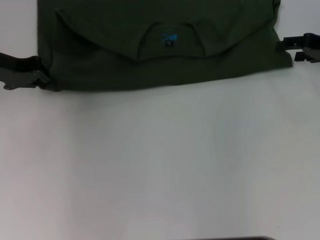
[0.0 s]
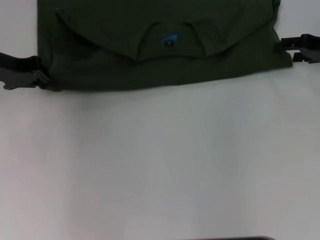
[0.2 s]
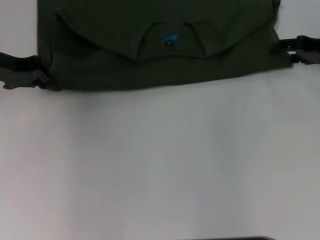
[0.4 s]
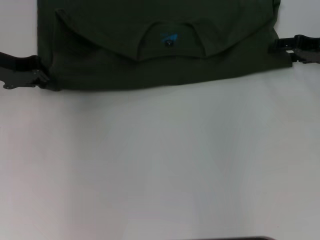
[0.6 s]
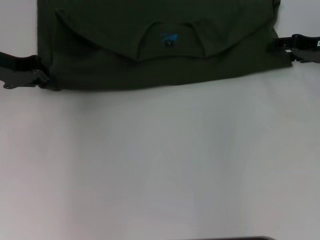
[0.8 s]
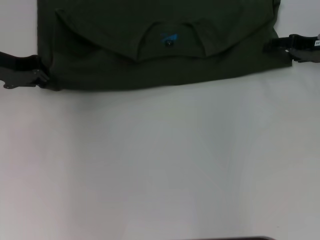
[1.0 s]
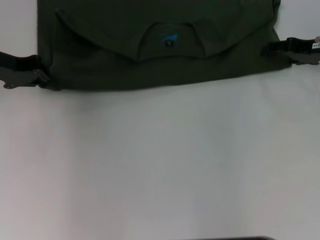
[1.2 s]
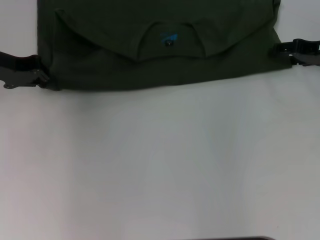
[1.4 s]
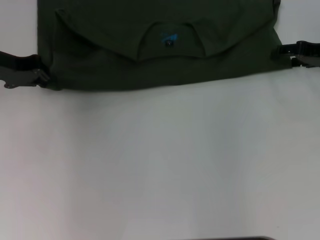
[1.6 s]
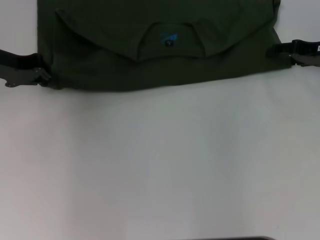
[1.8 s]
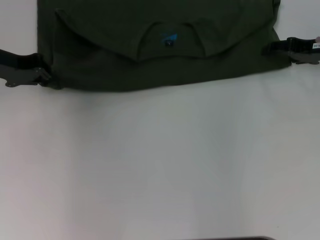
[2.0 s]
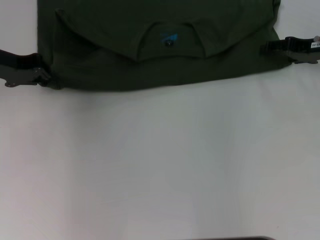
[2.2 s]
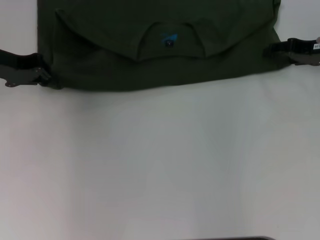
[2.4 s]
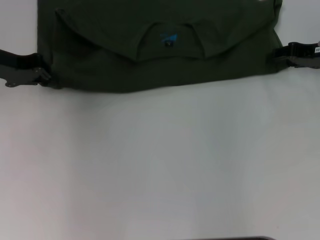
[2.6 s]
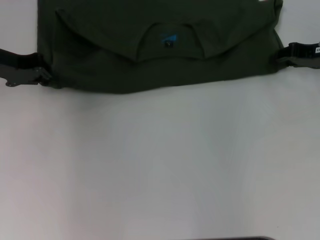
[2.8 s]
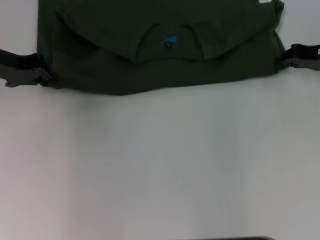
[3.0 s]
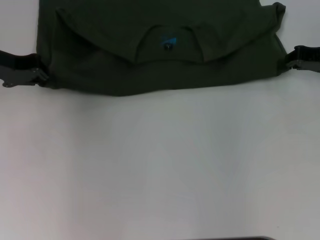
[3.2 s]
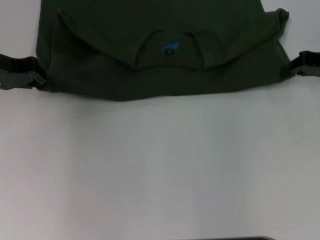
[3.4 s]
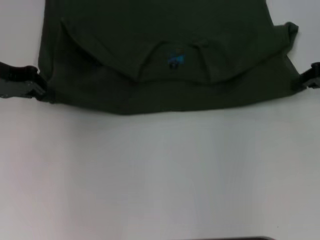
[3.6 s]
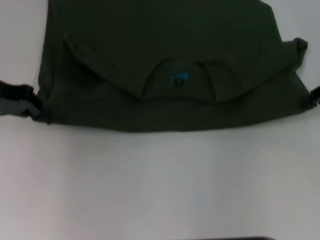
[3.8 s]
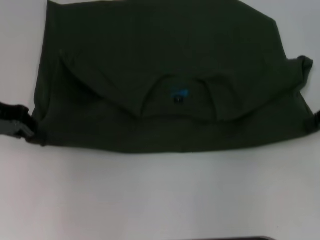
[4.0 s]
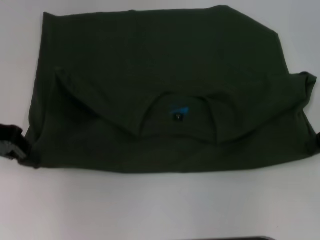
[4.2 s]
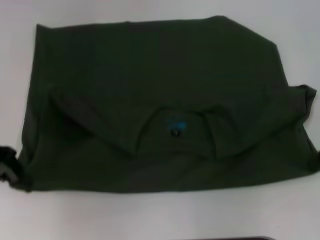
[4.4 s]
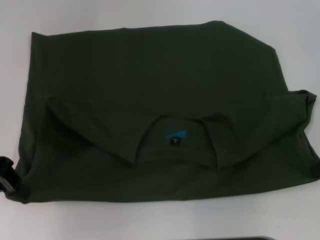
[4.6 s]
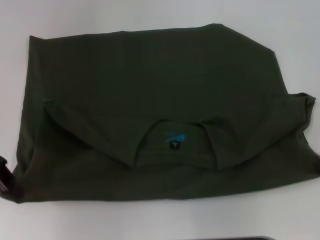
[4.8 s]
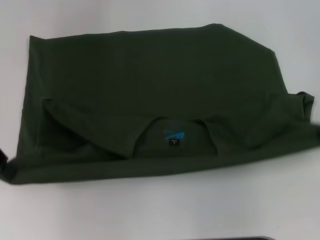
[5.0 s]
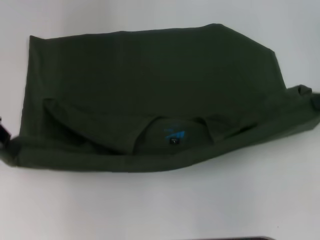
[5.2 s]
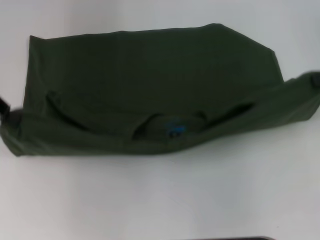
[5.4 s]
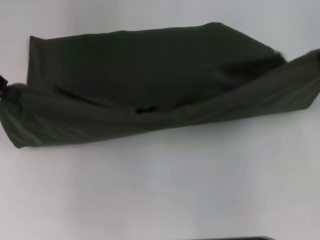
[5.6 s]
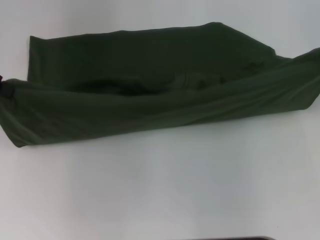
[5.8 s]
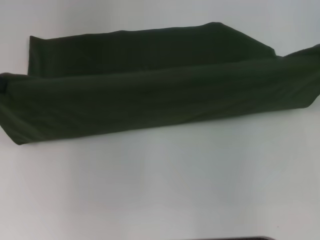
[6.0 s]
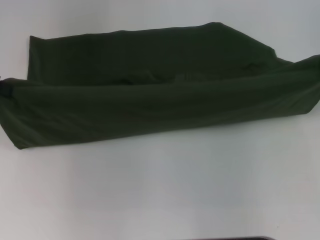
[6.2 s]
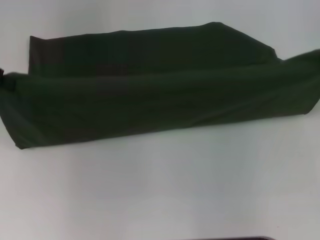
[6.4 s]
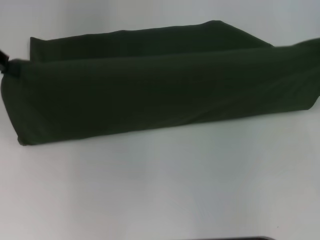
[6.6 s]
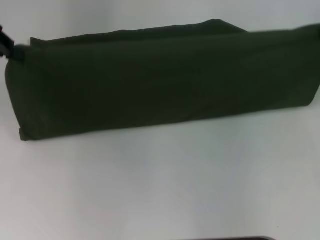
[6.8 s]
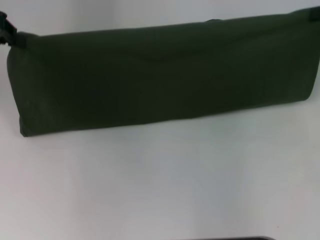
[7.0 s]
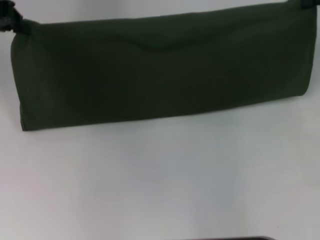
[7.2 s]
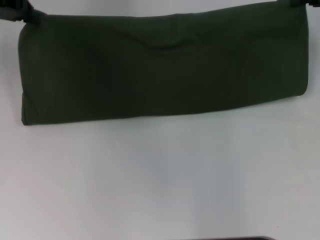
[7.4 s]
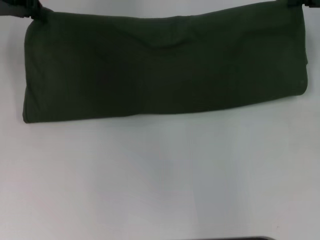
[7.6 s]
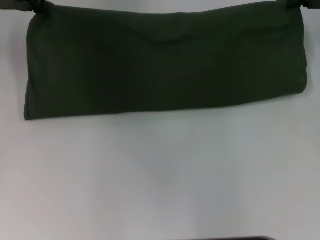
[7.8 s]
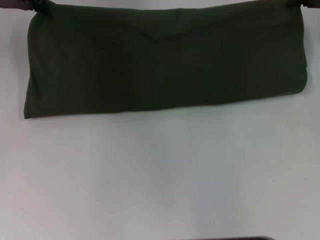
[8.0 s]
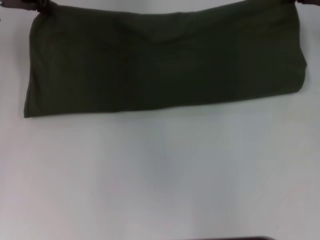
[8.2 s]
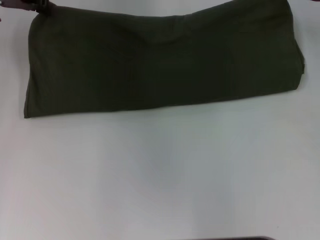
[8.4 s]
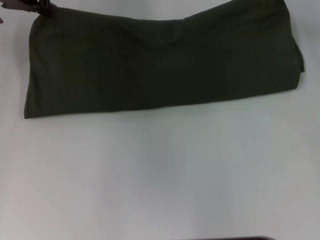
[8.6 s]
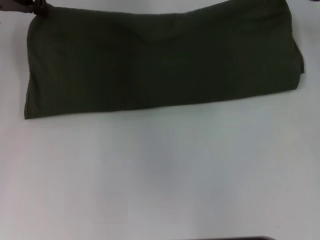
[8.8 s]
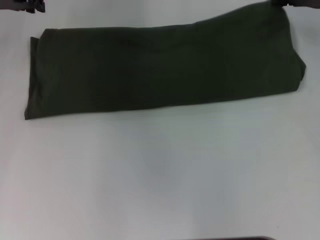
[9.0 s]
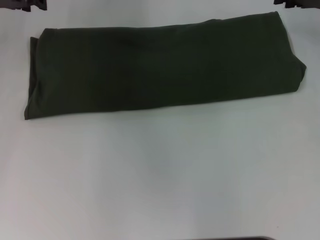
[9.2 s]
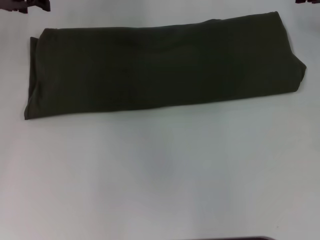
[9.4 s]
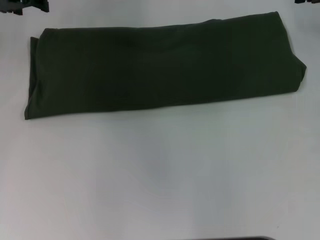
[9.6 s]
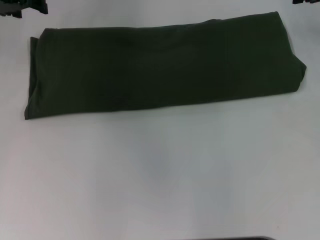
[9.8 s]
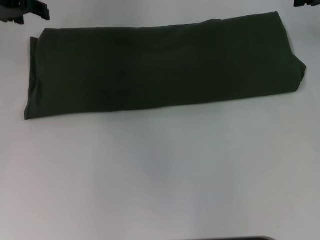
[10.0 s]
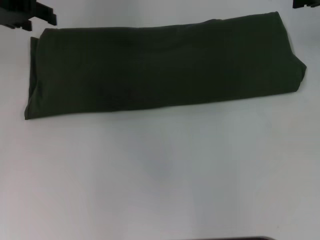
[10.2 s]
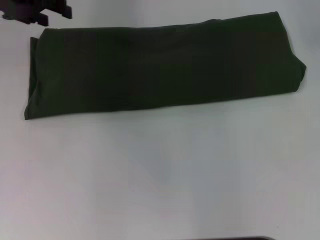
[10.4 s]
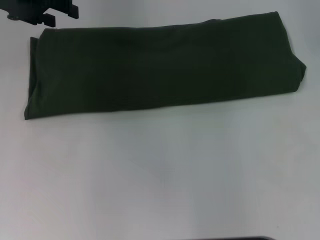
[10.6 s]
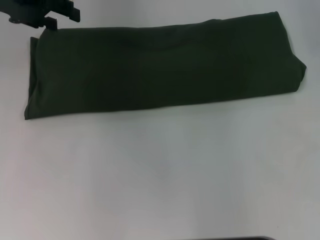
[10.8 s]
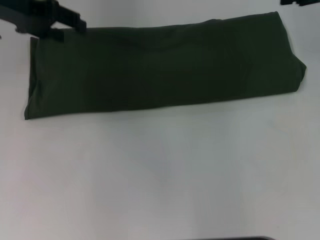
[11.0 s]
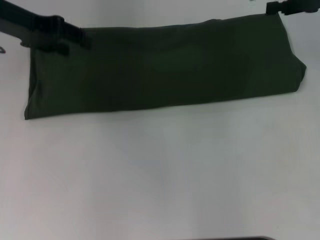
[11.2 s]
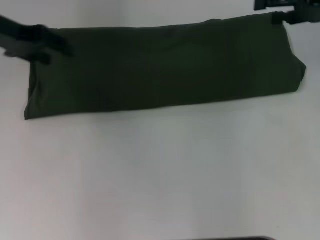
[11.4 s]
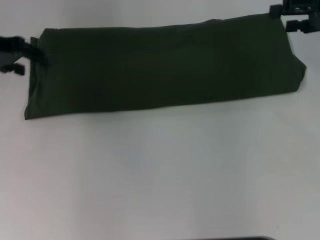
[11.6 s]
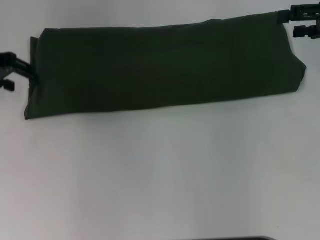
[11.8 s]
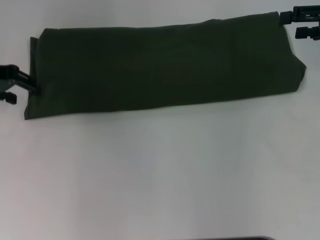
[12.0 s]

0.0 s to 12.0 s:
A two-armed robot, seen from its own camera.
Step, 0.0 to 4.4 s: Pull the clothes with your left hand.
Step, 0.0 to 4.4 s: Pull the clothes with your right hand.
Step, 4.6 to 9.2 s: Fold the clothes with your left hand.
Step, 4.6 to 9.2 s: Fold the clothes with your right hand.
0.0 to 1.6 s: The grippers move only a little.
1.6 to 3.0 s: The right gripper closes up.
3.0 to 4.4 s: The grippers both shift backward by about 10 cm.
4.4 to 6.0 s: The left gripper moves upward, about 10 cm, while the right gripper is displaced upward and forward by about 10 cm.
6.0 to 7.6 s: The left gripper heads forward and to the right, covering some 10 cm, while the right gripper is displaced forward by approximately 5 cm.
7.6 to 9.0 s: The grippers stay close to where they were, moving slightly.
9.0 to 10.4 s: The right gripper travels upward by some 5 cm, and opens, while the left gripper opens.
10.4 to 12.0 s: The left gripper goes approximately 5 cm downward. The right gripper moves roughly 5 cm.

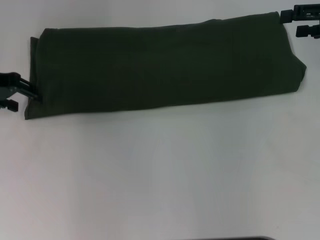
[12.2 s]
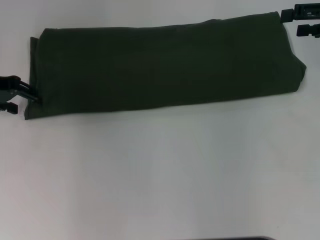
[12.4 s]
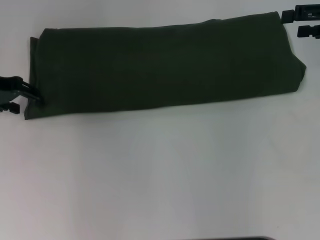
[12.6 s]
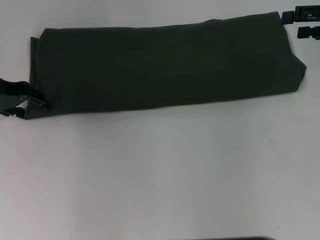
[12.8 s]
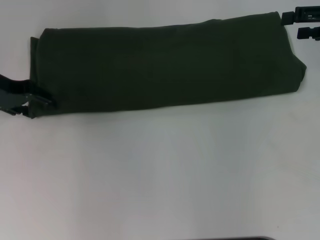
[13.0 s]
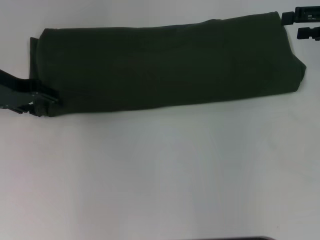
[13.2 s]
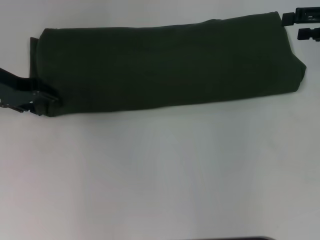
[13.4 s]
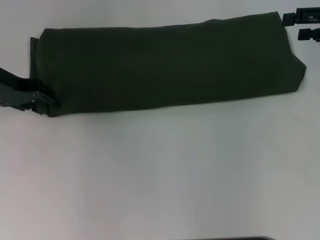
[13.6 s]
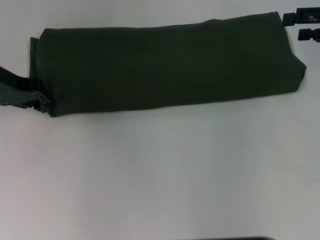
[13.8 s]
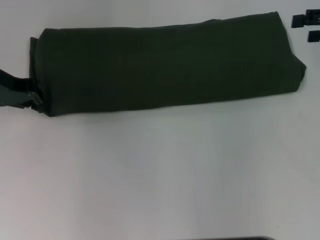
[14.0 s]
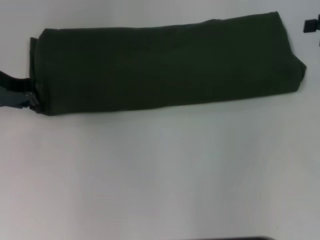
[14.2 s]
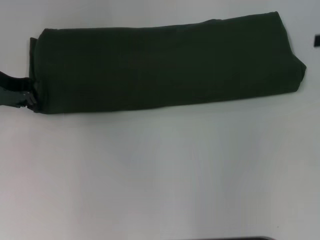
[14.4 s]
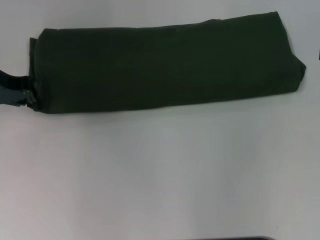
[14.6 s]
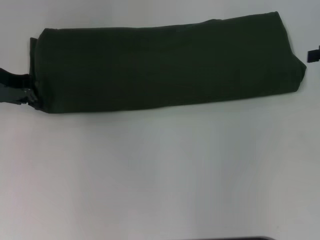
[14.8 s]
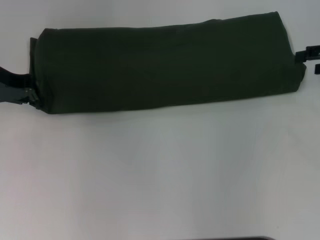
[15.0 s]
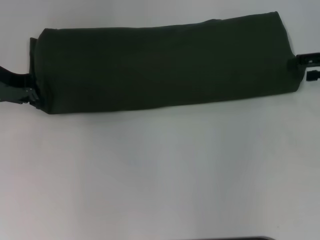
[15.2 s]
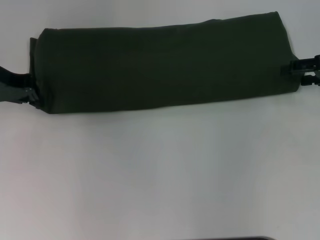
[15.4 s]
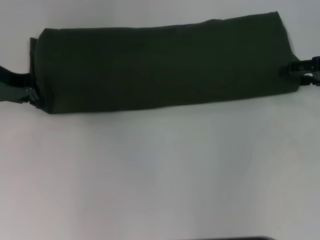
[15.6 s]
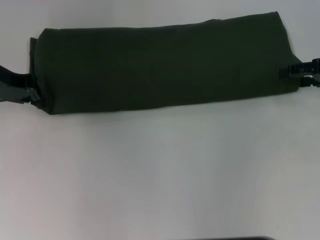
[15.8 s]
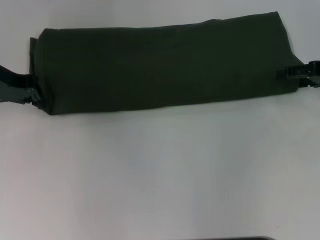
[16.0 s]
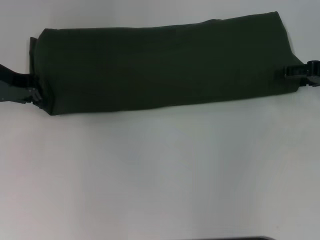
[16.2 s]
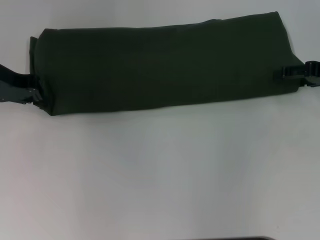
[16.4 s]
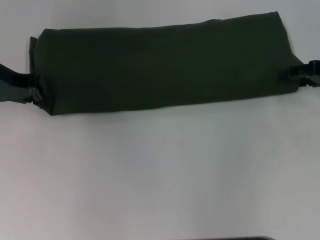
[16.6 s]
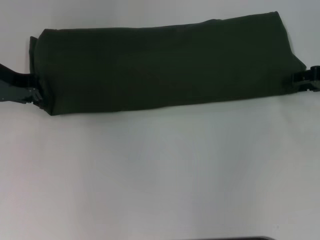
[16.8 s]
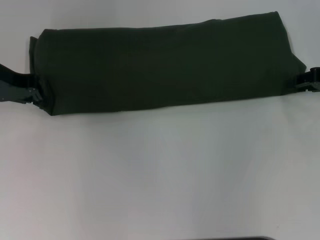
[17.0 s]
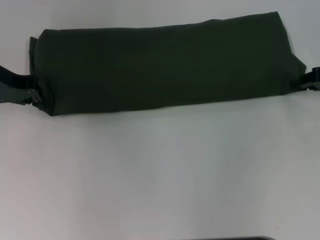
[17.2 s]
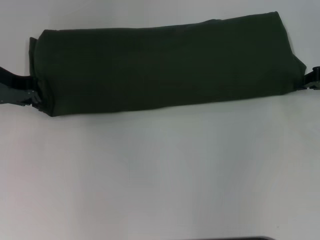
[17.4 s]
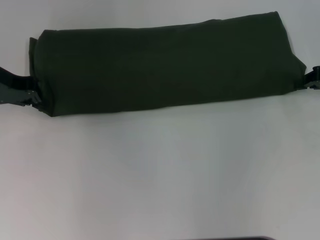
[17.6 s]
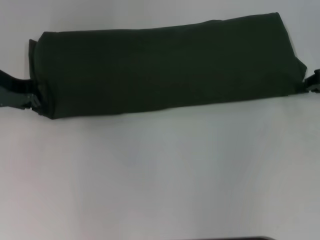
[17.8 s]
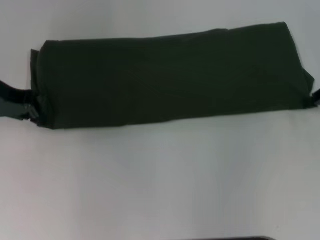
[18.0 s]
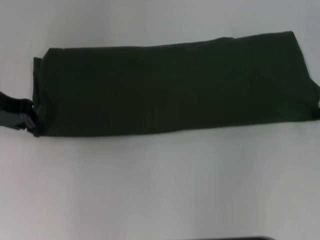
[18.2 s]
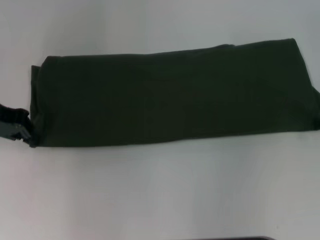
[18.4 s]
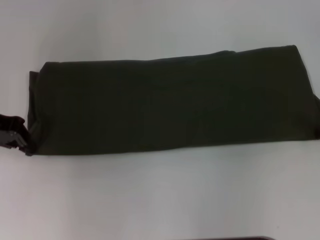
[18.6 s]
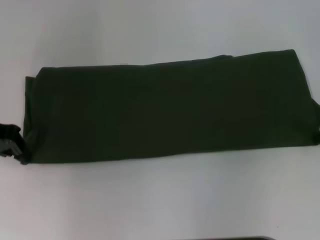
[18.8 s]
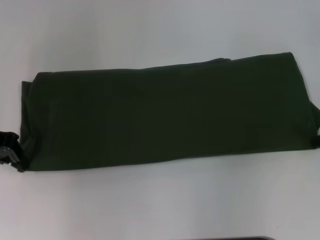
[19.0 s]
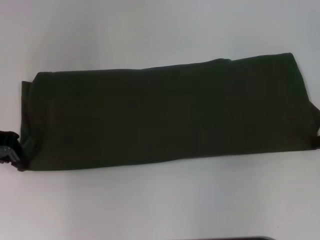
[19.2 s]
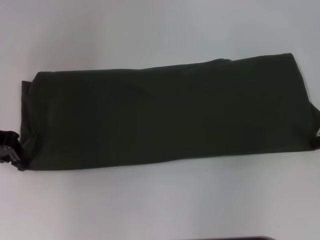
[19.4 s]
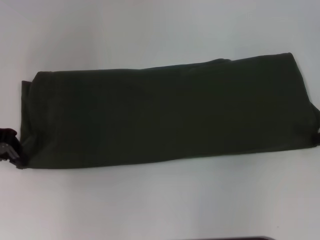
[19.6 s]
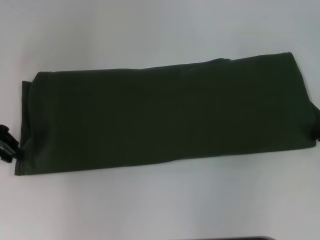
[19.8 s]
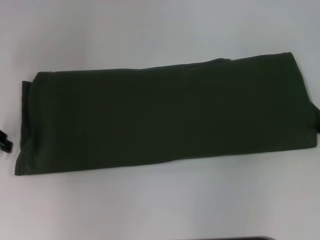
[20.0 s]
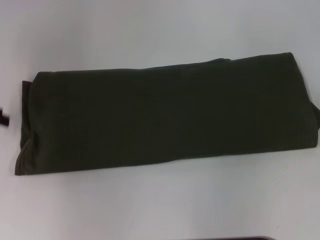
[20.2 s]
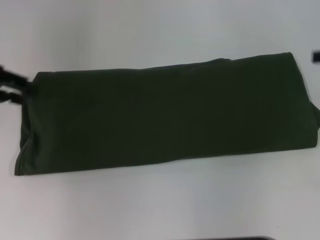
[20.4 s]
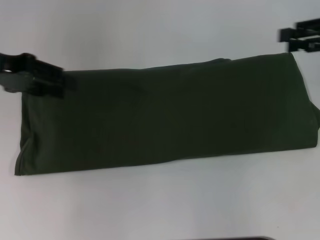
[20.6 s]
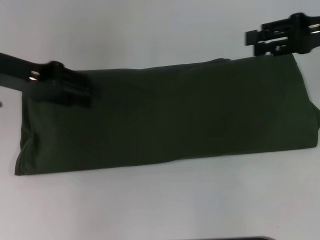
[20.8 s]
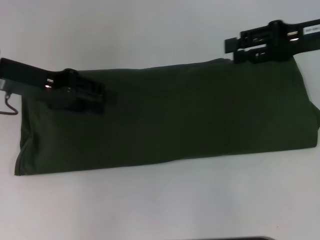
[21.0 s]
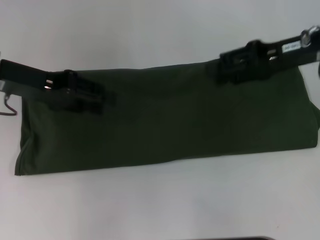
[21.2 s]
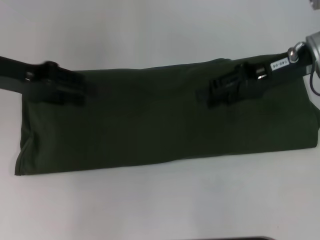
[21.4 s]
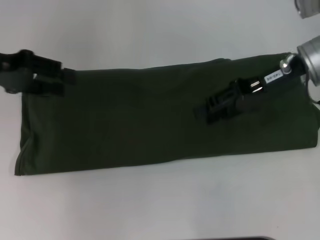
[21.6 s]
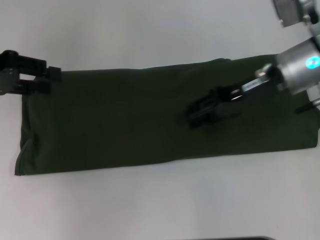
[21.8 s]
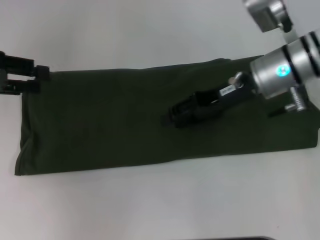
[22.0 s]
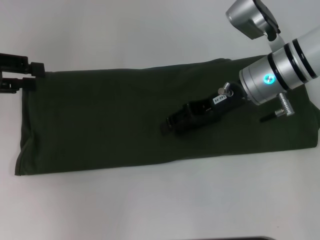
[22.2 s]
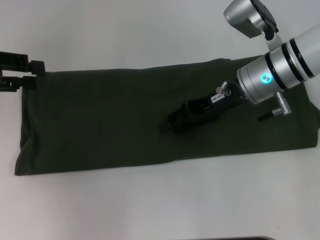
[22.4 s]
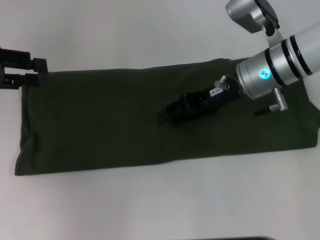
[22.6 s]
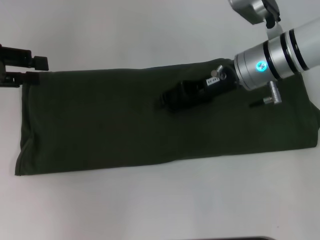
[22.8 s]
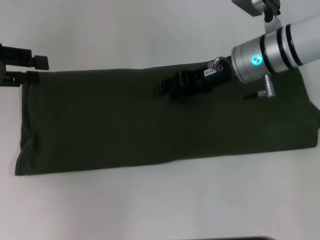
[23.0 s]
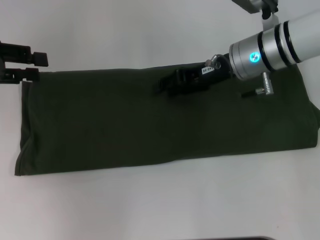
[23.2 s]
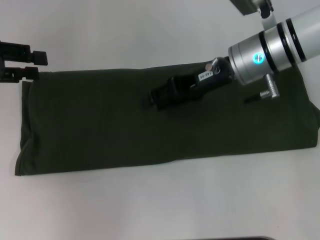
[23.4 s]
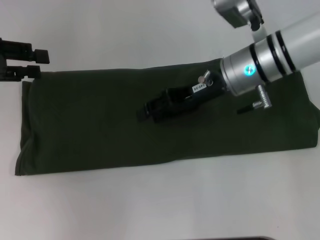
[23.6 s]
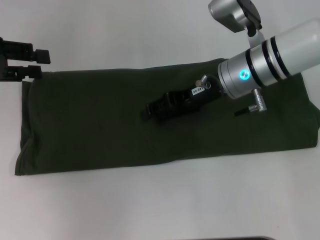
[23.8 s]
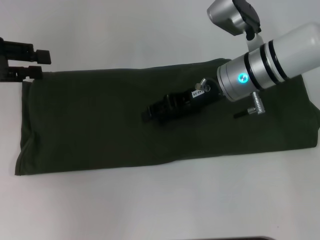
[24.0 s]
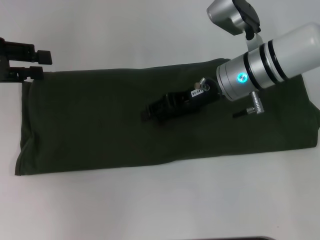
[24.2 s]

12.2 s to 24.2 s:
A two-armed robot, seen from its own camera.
Step, 12.2 to 20.0 s: Pull the clothes with your left hand.
Step, 12.2 to 20.0 s: Pull the clothes with your right hand.
12.2 to 13.8 s: There are only small adjustments of the grippers.
15.2 to 16.6 s: The grippers stay close to where they were, moving slightly.
16.6 to 18.2 s: The right gripper closes.
19.8 to 21.2 s: The right gripper moves to the left and forward, roughly 15 cm, and opens its fingers. The left gripper shifts about 5 cm to the right, and opens its fingers.
21.2 to 22.6 s: The right gripper heads to the left and downward, covering approximately 10 cm, while the left gripper is displaced to the left by approximately 10 cm.
22.6 to 24.2 s: There are only small adjustments of the grippers.
